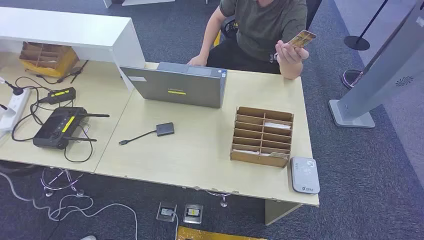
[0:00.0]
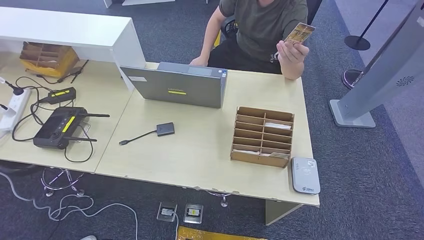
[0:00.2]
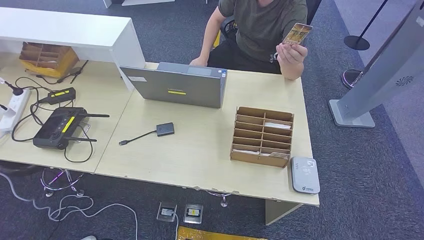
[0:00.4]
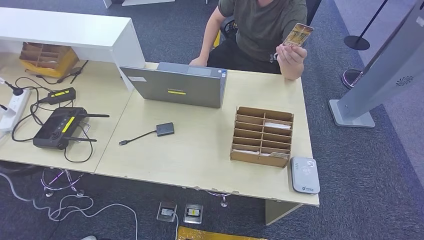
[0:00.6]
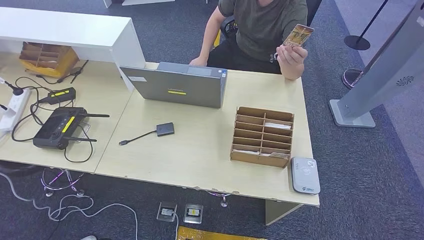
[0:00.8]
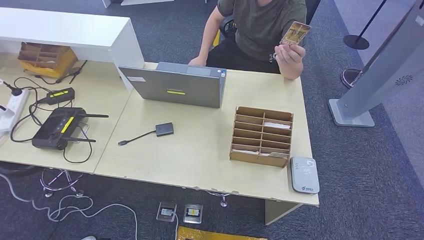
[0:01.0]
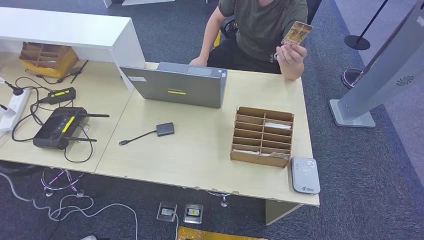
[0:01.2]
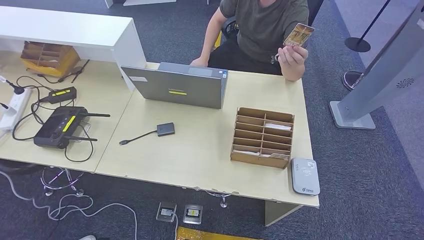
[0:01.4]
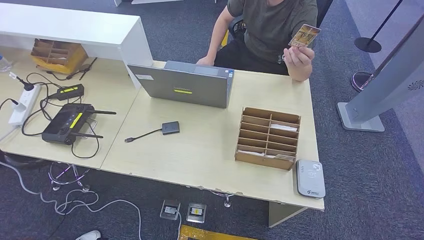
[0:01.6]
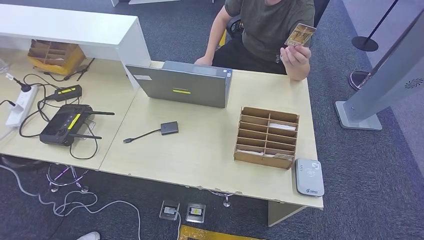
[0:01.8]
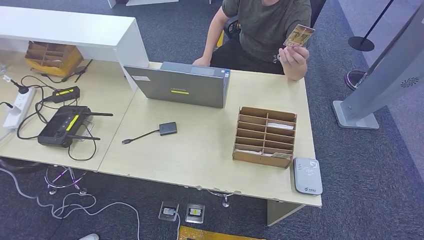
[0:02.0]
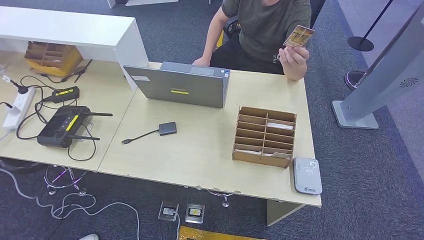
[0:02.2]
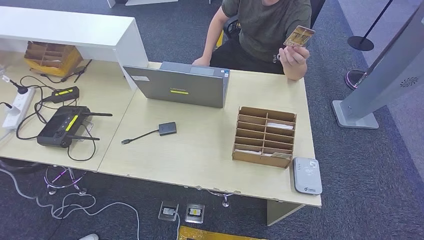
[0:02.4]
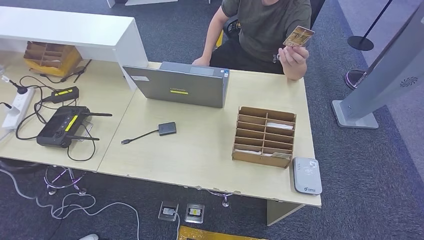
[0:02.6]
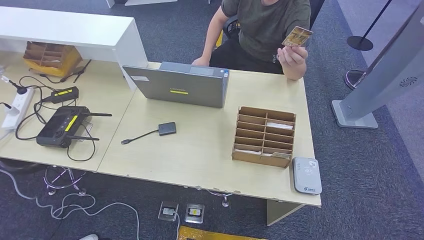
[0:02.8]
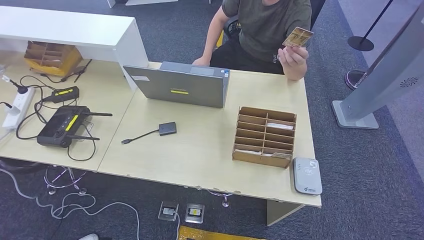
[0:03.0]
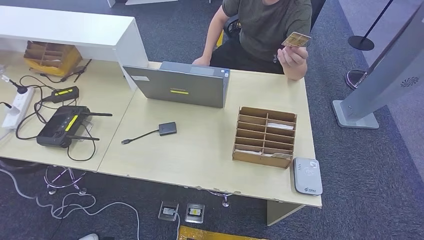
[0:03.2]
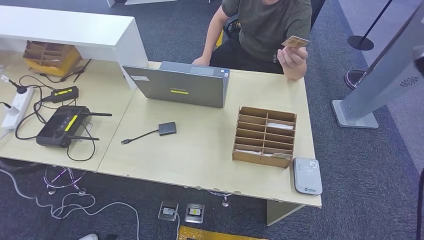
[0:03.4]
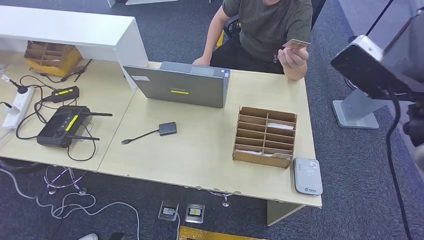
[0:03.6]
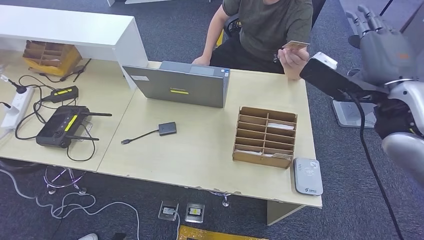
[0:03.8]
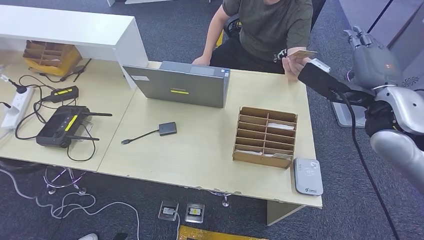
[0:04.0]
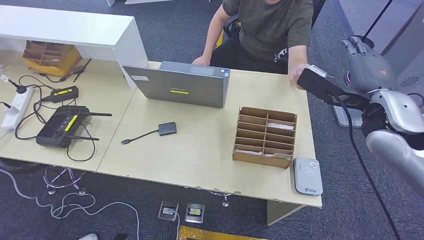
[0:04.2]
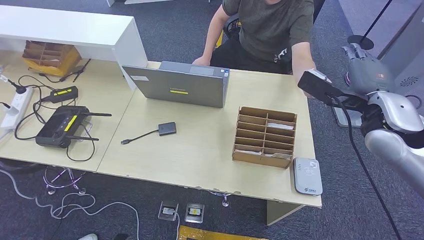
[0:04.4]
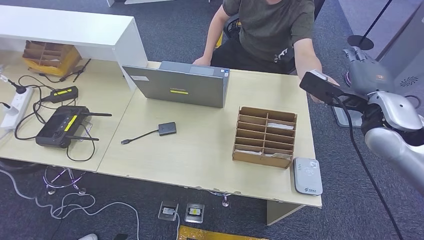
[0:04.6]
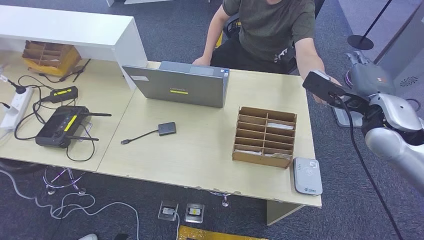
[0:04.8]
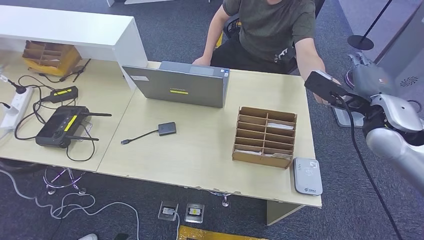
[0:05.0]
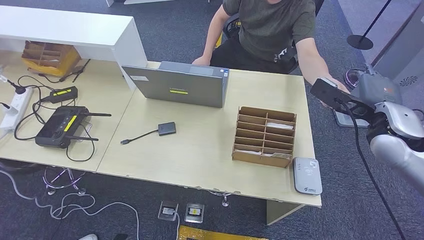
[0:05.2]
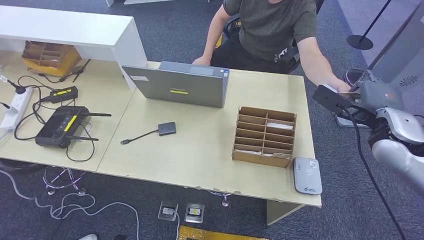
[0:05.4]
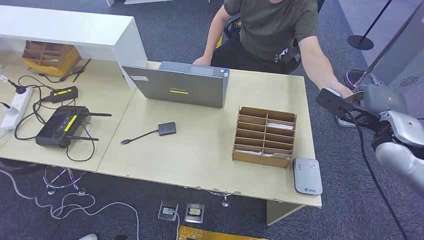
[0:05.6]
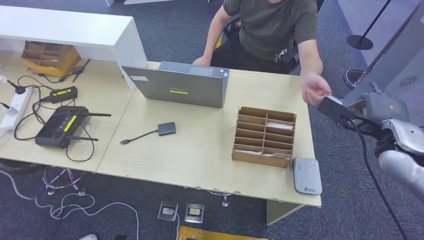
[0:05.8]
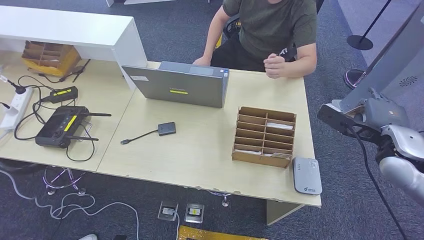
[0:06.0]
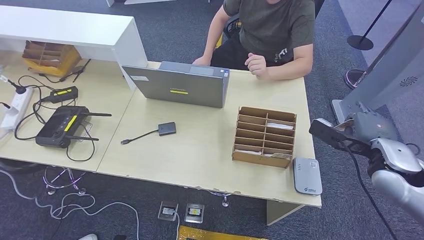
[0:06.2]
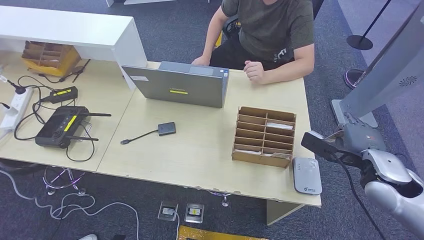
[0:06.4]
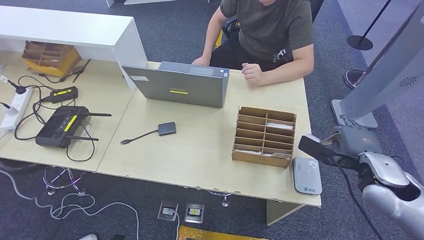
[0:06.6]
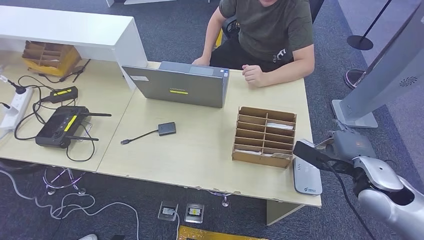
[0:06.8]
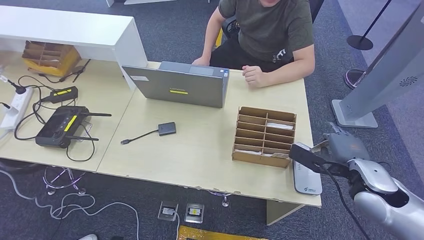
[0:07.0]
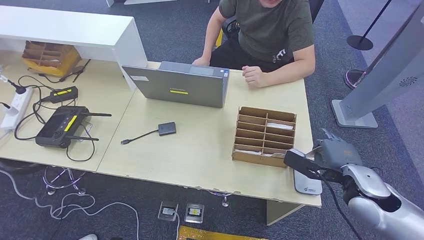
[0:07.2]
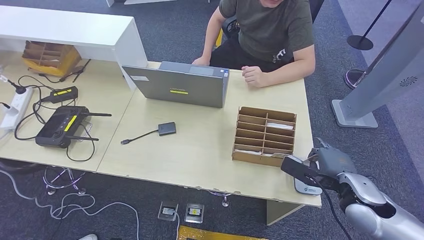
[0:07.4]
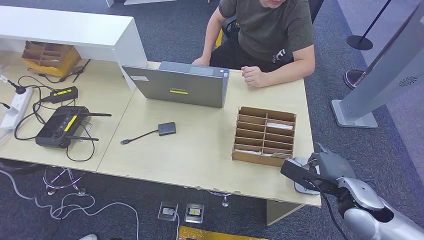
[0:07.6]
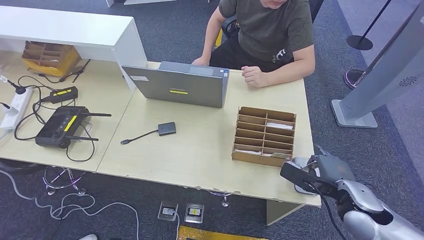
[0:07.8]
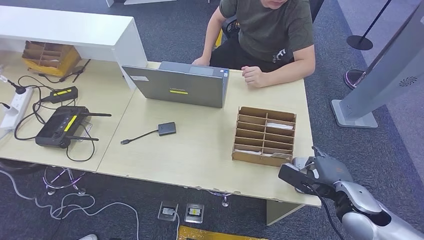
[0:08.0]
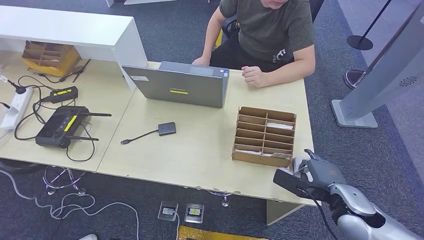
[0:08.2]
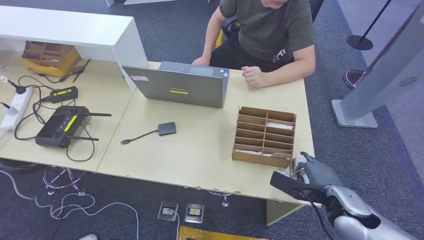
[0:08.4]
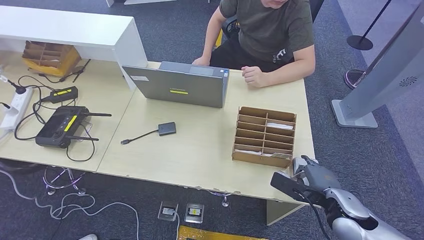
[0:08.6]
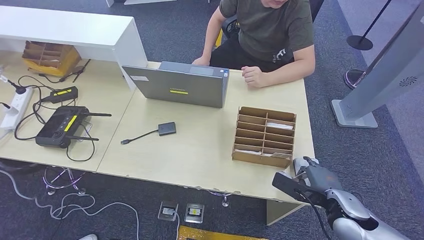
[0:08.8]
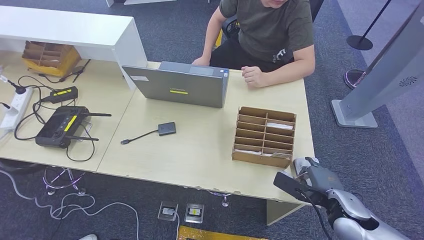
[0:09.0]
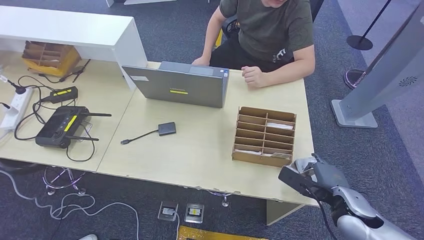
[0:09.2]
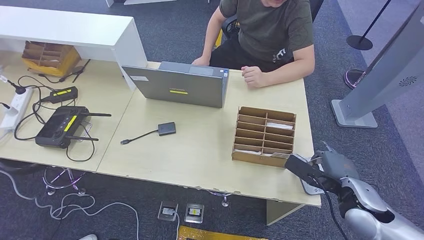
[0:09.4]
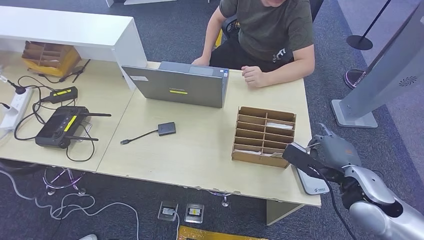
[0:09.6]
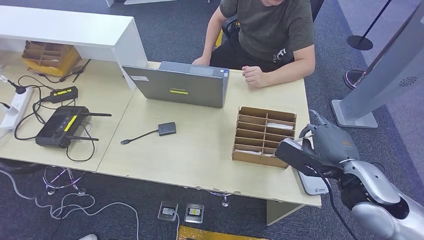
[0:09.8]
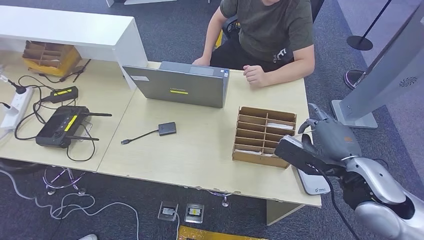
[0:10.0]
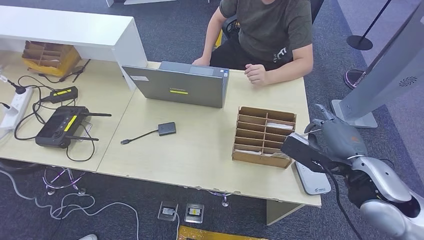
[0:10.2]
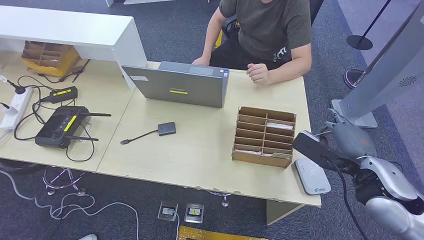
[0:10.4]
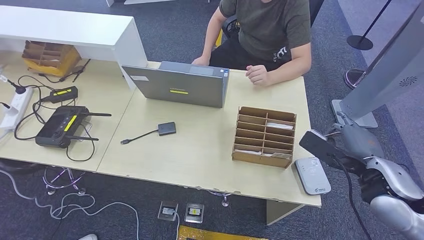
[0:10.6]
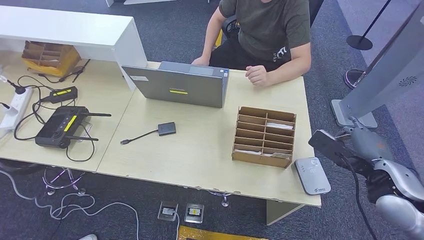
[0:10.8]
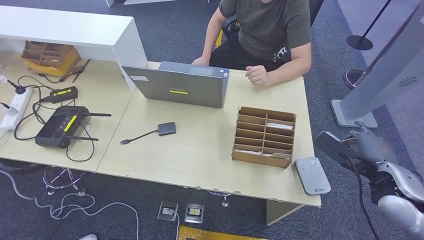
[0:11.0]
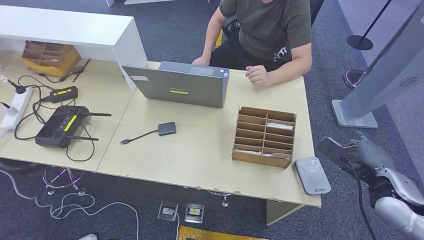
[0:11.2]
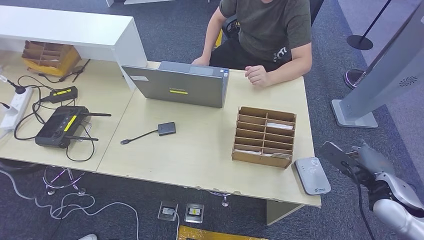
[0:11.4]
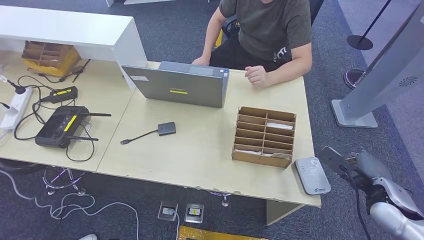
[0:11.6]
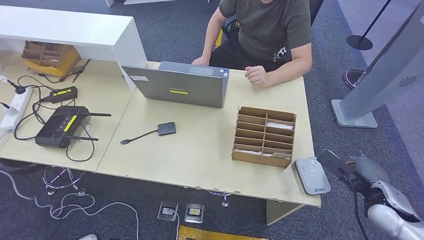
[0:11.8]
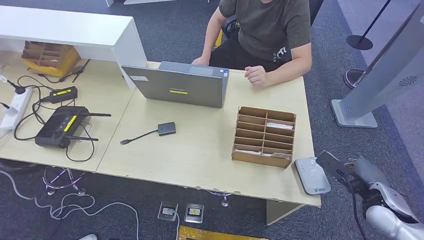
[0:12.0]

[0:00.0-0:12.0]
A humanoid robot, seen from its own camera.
Step, 0:00.0 to 0:05.8: Take the ID card from the person's hand.
Step, 0:06.0 to 0:08.2: Place the ID card on the card reader.
0:01.6 to 0:03.0: The right hand moves upward and to the left, about 30 cm.
0:03.0 to 0:04.4: The right hand moves forward and to the left, some 20 cm.
0:04.4 to 0:06.0: The right hand heads downward and to the right, covering approximately 10 cm.
0:06.0 to 0:07.6: The right hand heads downward, backward and to the left, covering approximately 15 cm.
0:07.6 to 0:09.0: The hands make only small movements.
0:09.0 to 0:10.4: The right hand heads upward, covering roughly 15 cm.
0:10.4 to 0:12.0: The right hand travels downward and to the right by roughly 15 cm.

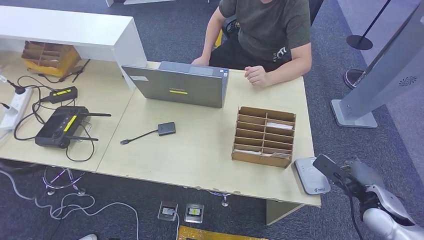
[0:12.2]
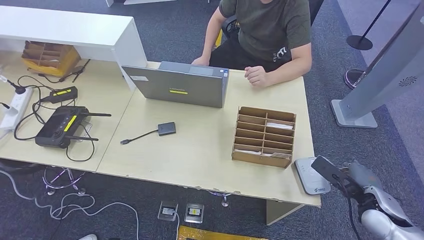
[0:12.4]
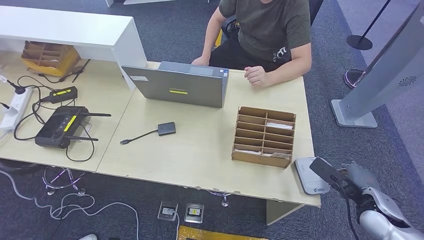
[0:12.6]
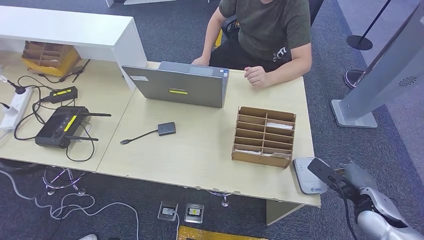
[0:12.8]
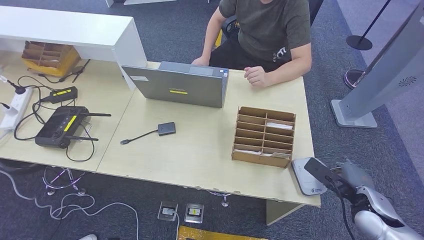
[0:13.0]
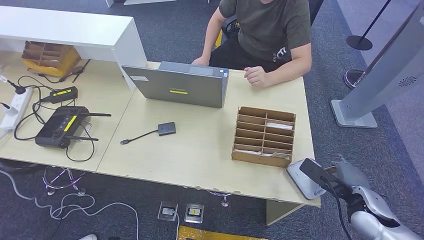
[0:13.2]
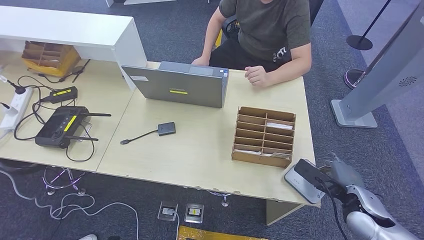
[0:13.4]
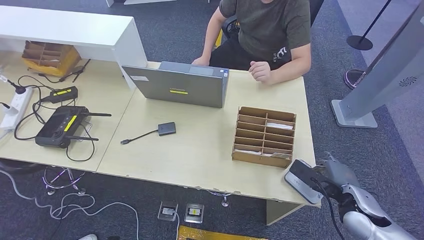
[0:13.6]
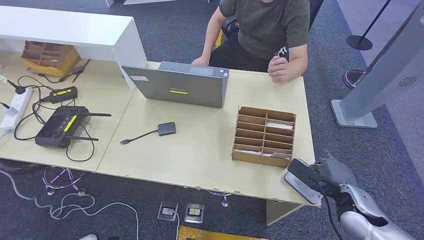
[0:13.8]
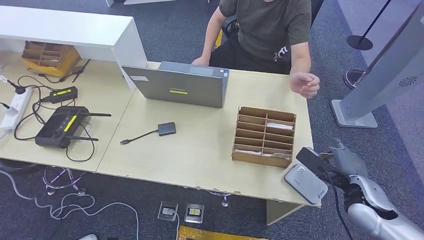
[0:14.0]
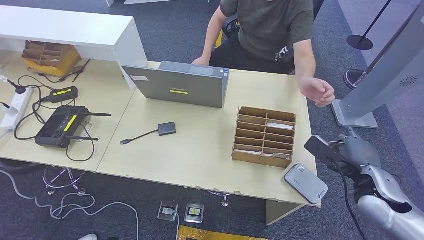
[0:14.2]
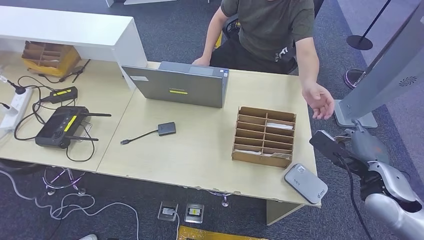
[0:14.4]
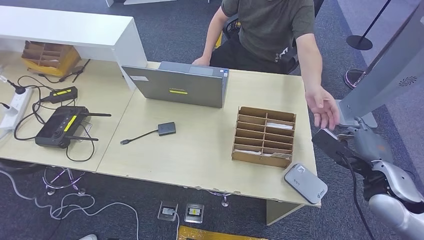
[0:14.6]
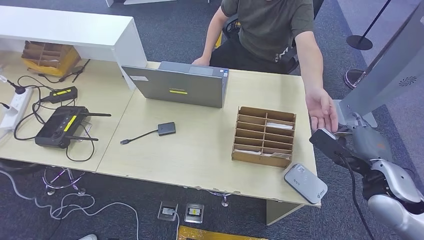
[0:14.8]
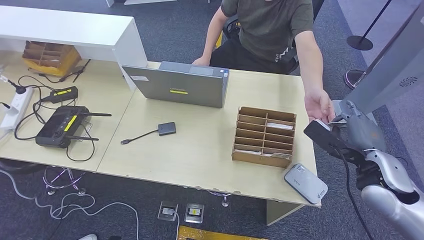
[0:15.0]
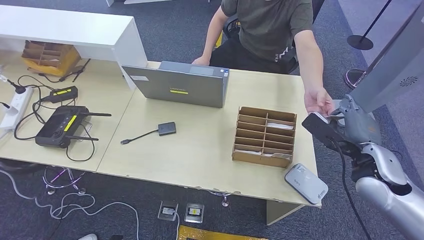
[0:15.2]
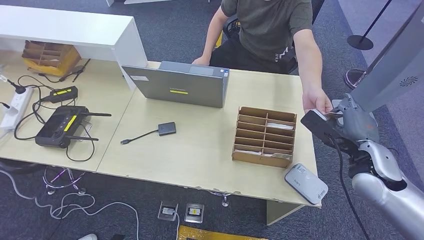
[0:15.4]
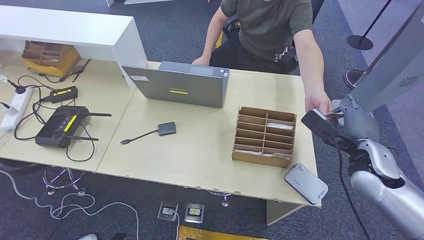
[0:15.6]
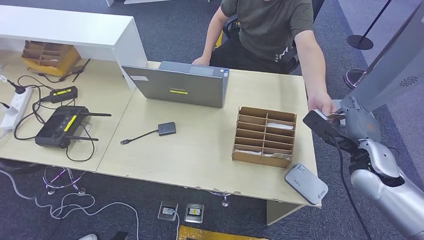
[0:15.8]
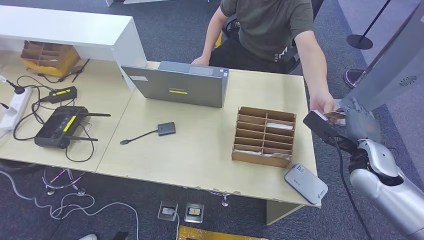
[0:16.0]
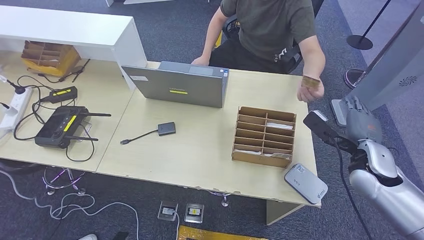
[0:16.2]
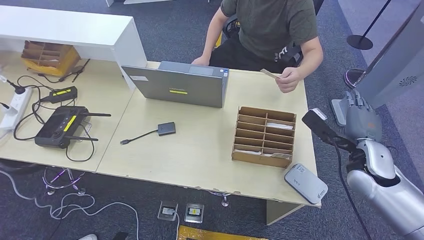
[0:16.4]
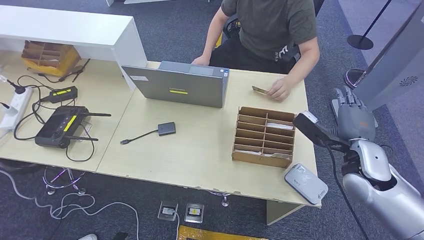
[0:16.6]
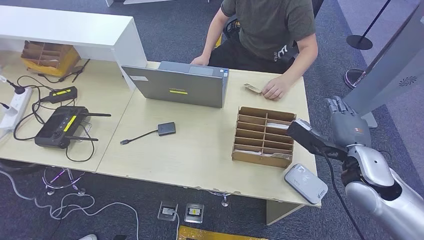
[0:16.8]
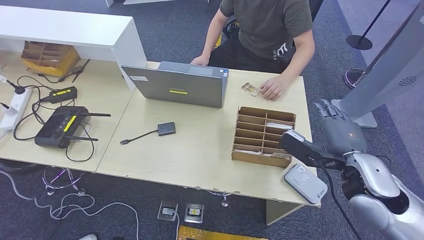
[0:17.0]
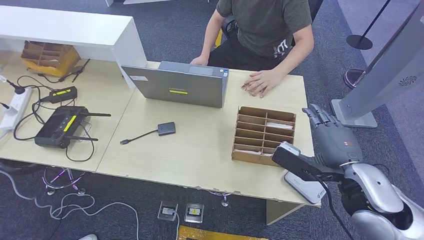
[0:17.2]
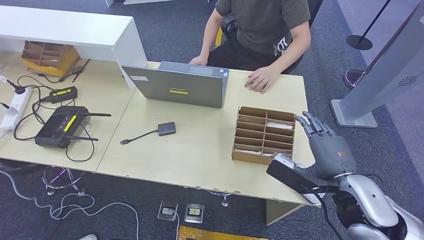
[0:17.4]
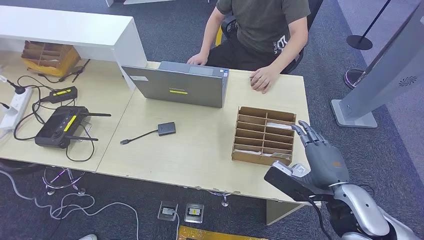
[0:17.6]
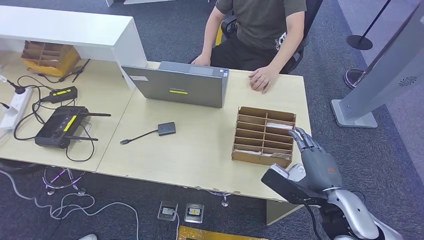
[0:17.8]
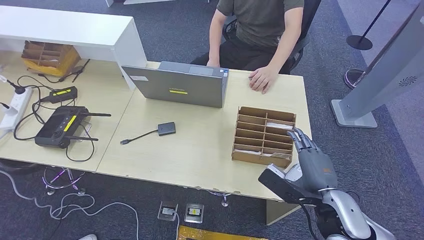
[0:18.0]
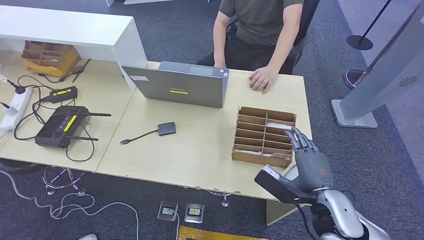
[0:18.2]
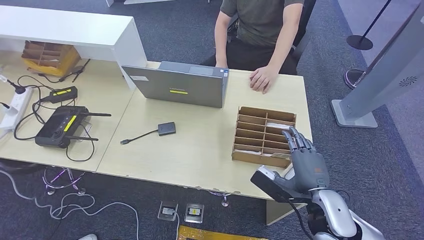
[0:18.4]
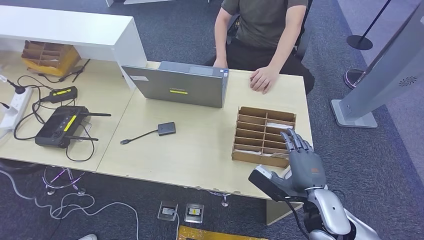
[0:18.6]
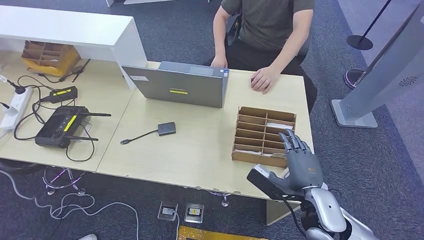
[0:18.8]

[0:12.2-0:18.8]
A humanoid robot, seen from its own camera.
Step, 0:12.2 to 0:17.0: Hand the ID card to the person.
0:12.2 to 0:13.8: The right hand travels to the left by about 5 cm.
0:13.8 to 0:15.4: The right hand is displaced upward and forward by about 10 cm.
0:15.4 to 0:17.2: The right hand is displaced to the left and backward by approximately 10 cm.
0:17.2 to 0:18.8: The right hand travels downward by some 10 cm.
